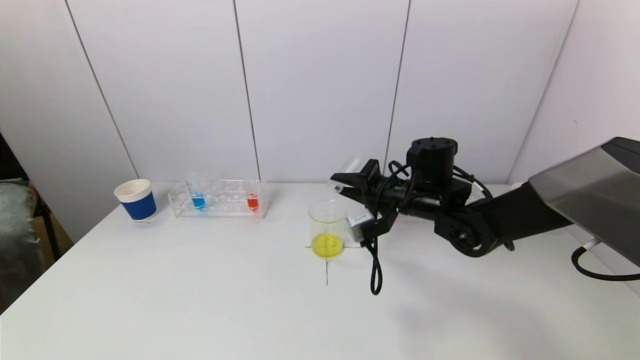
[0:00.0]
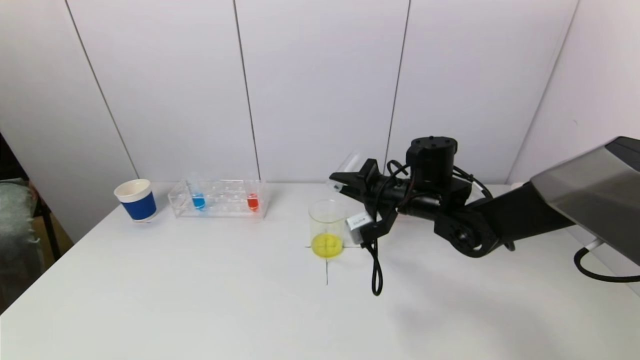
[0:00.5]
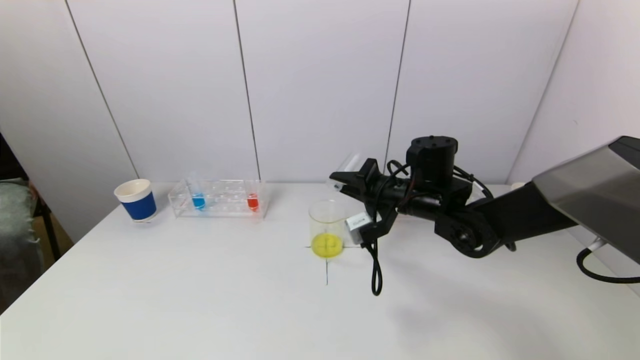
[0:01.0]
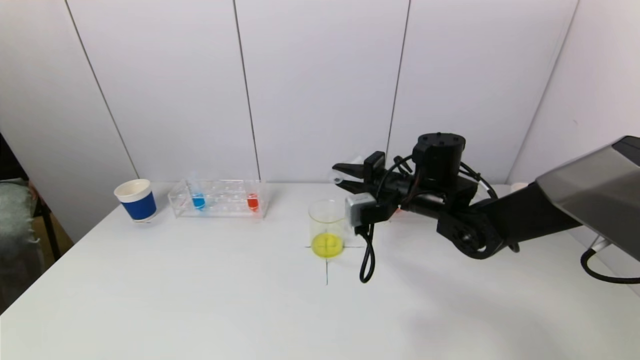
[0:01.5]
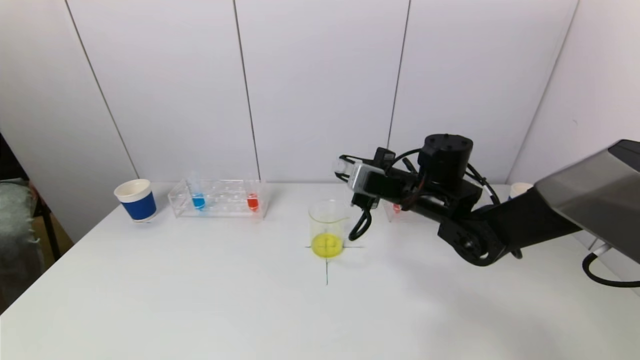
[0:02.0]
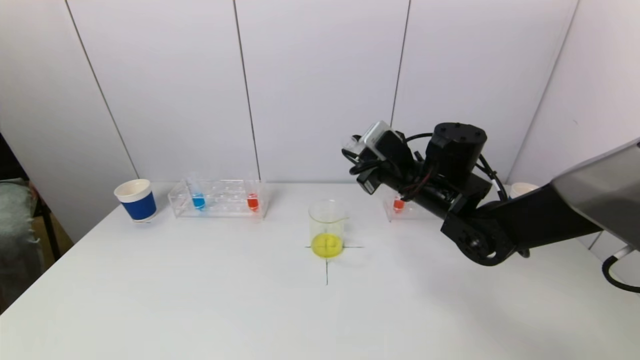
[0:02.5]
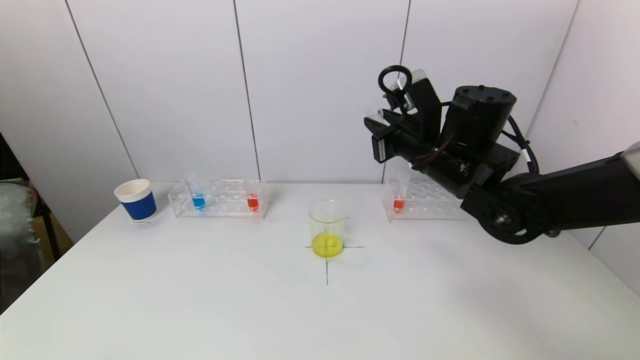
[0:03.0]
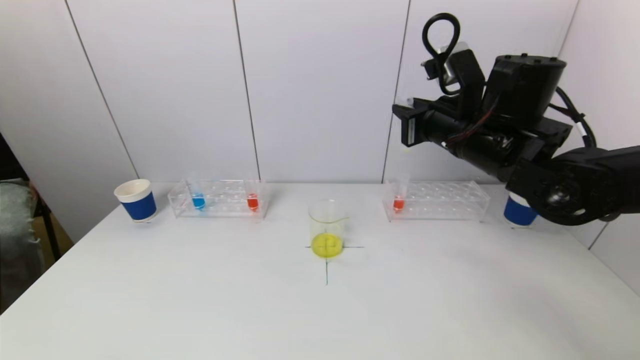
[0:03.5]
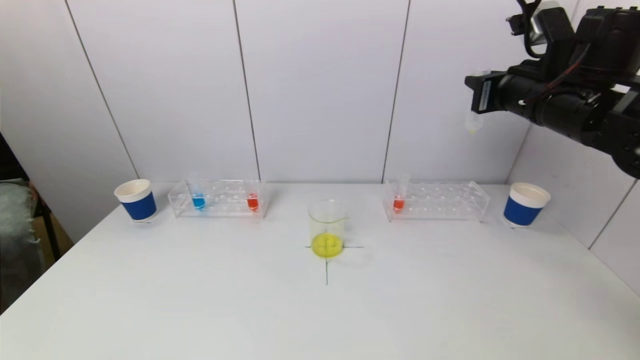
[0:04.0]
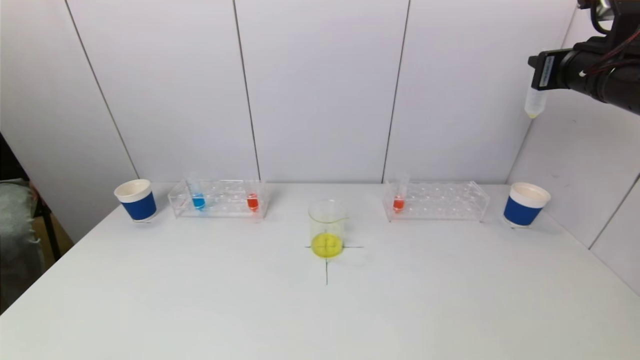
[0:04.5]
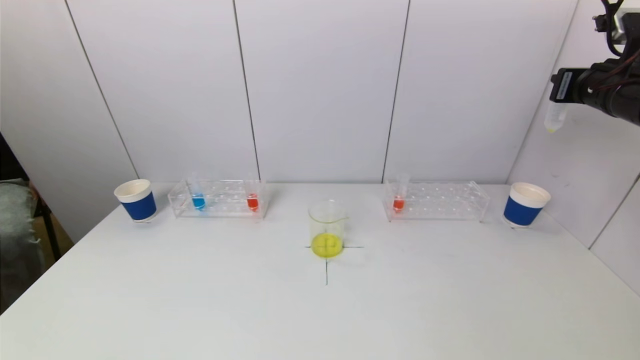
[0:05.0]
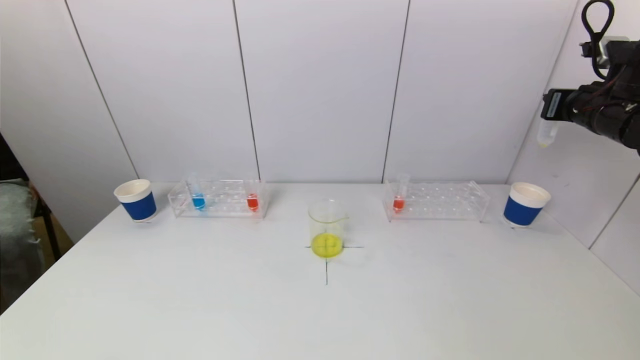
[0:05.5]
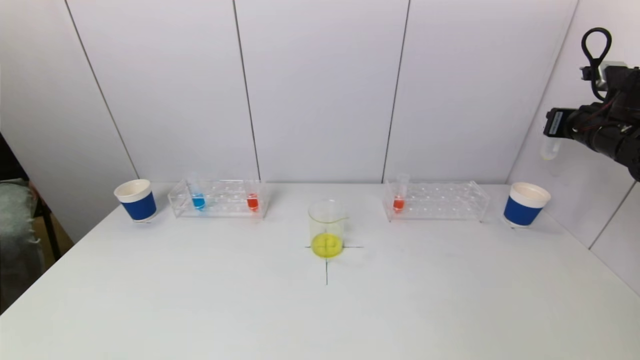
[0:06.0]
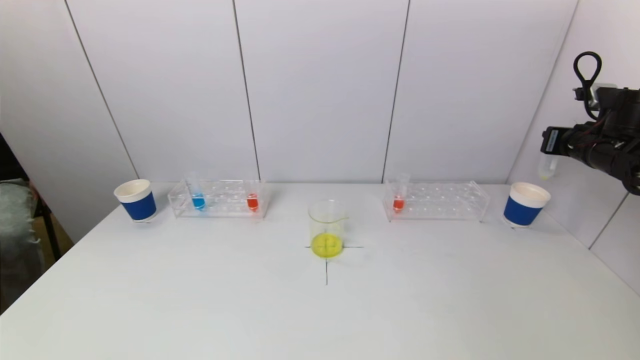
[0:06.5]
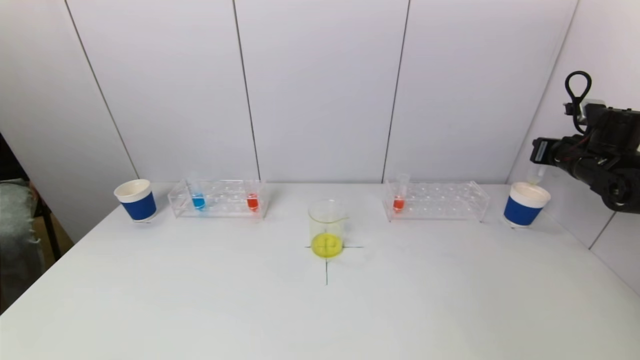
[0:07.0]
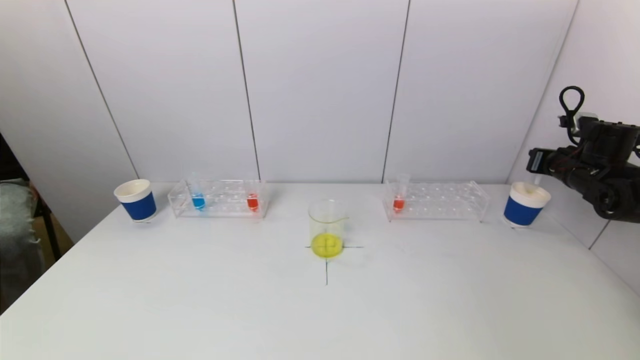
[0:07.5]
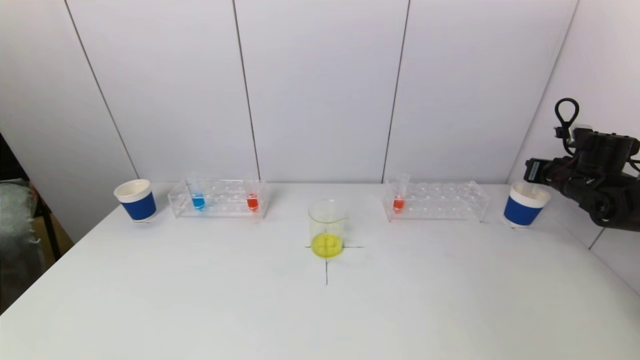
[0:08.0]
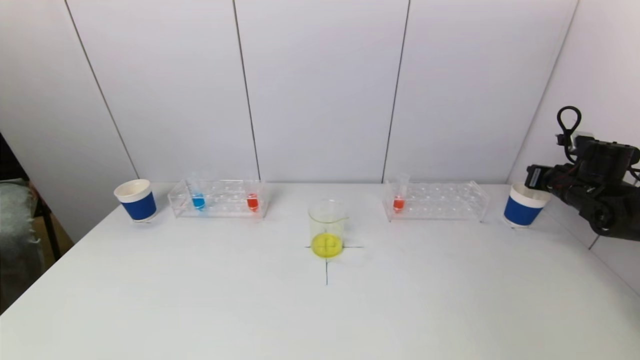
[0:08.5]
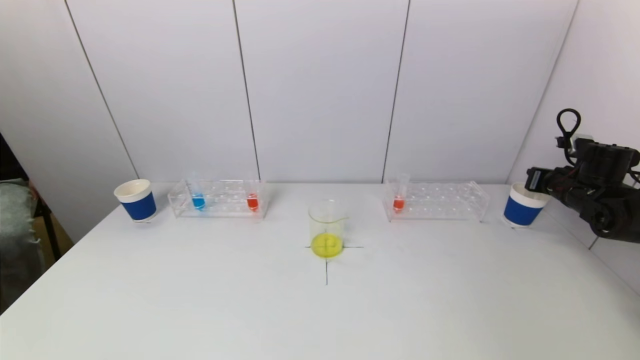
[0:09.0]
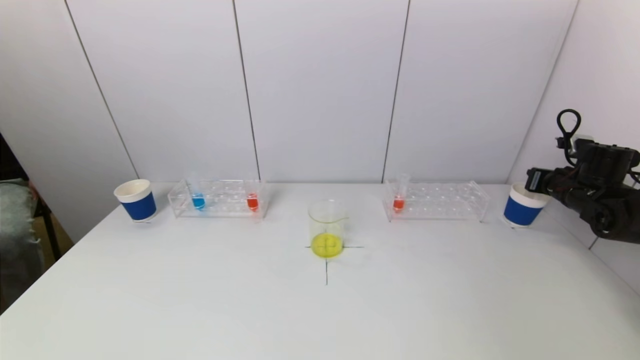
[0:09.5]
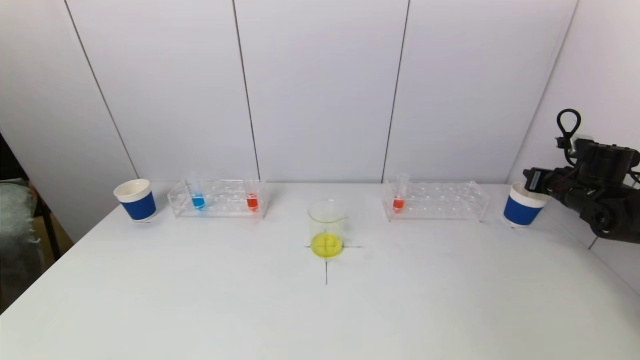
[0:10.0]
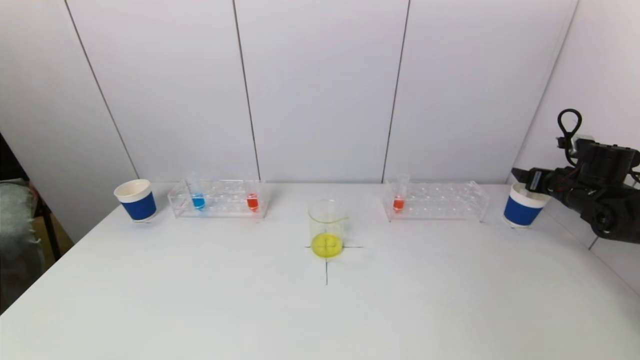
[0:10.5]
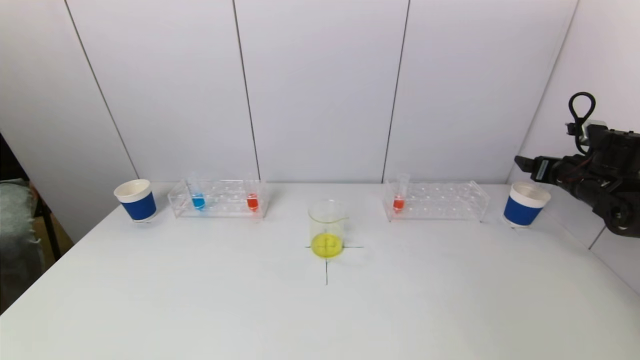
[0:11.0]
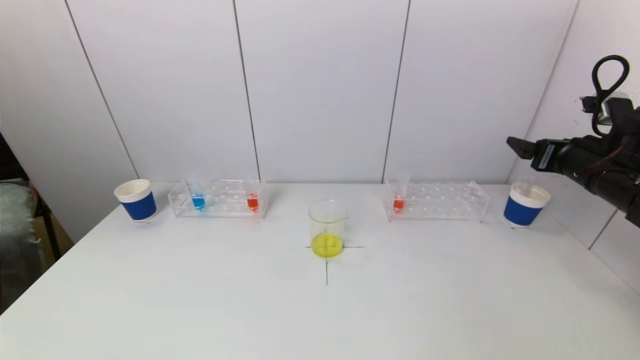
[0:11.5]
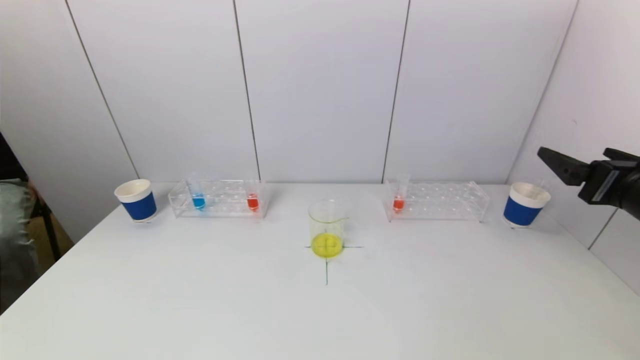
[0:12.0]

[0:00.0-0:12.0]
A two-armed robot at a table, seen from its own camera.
Task of the whole recording: pick up a test tube with pigment on left test tube rack and a test tube with pigment on right test tube rack by grippers and pour them into the beaker.
Step, 0:01.0 to 0:10.5: Place the test tube into the paper cup with the right gripper.
0:02.0 to 0:04.0: The right gripper goes some 20 cm upward and to the right.
0:04.0 to 0:06.0: The right gripper travels to the right and downward by some 15 cm.
0:06.0 to 0:08.0: The right gripper is displaced downward by some 10 cm.
0:08.0 to 0:10.0: There are only small adjustments of the grippers.
0:10.0 to 0:12.0: The right gripper goes roughly 25 cm backward, to the left and upward, and opens up.

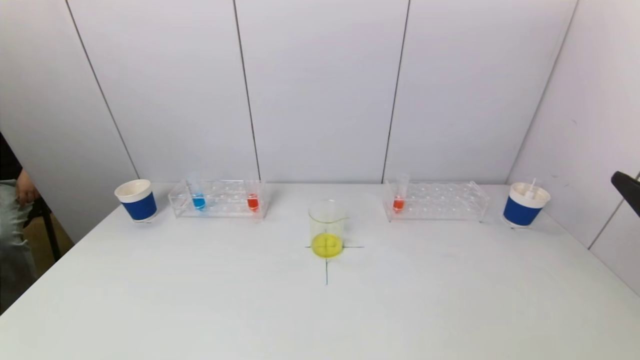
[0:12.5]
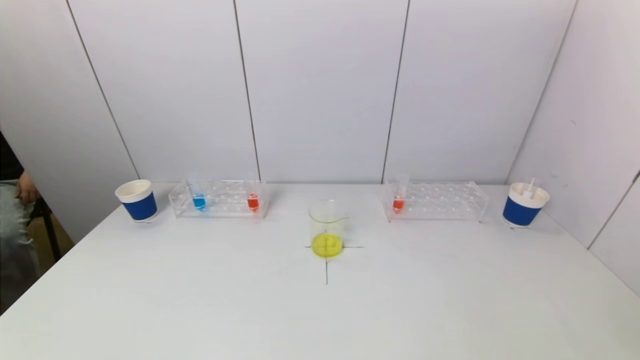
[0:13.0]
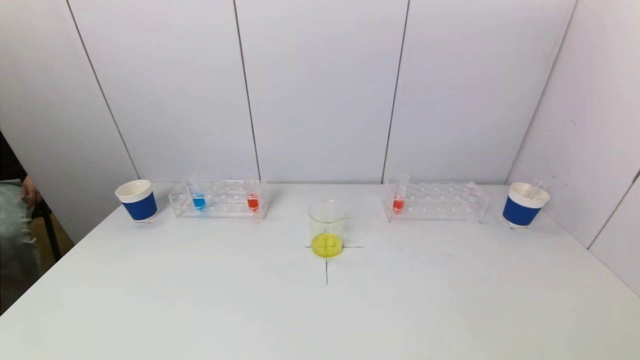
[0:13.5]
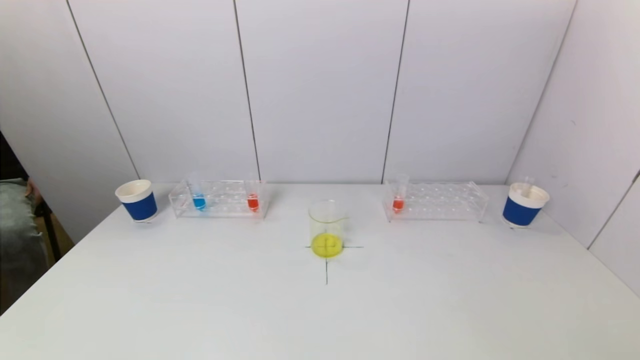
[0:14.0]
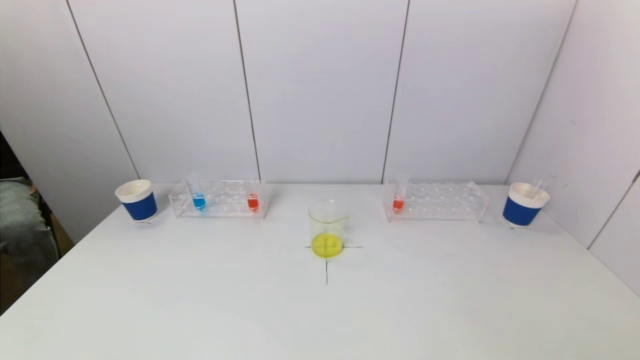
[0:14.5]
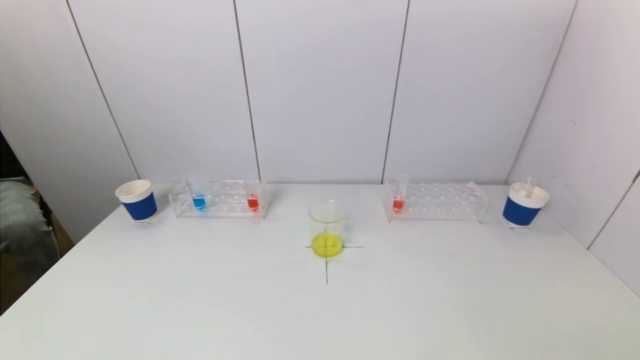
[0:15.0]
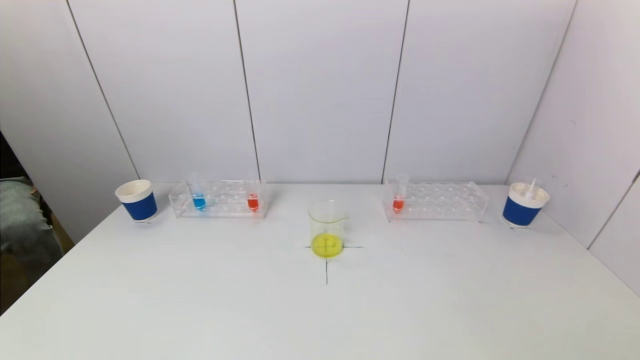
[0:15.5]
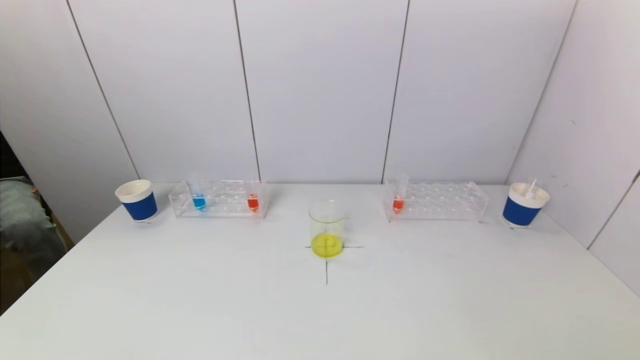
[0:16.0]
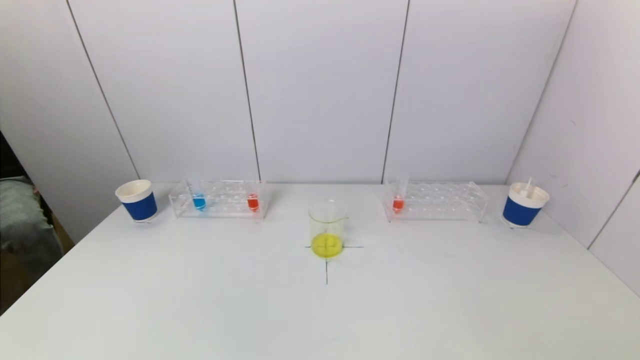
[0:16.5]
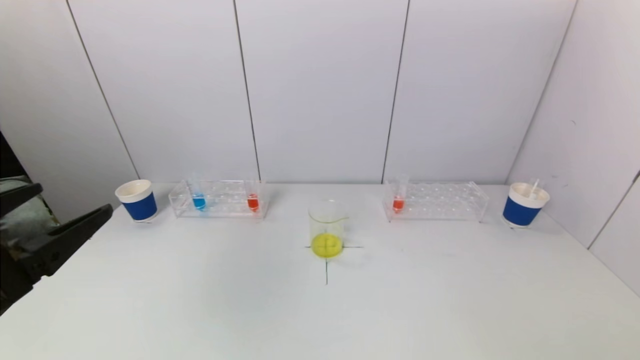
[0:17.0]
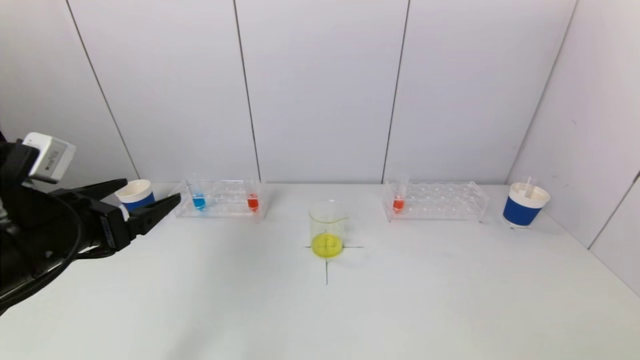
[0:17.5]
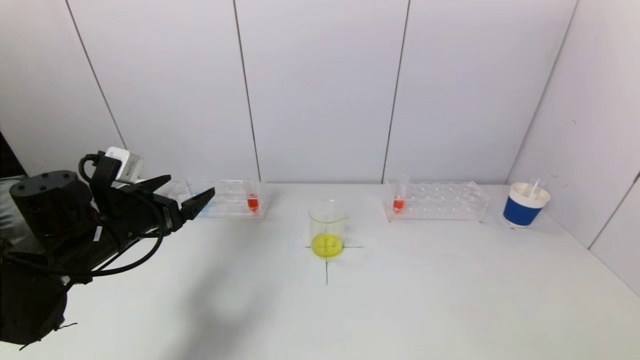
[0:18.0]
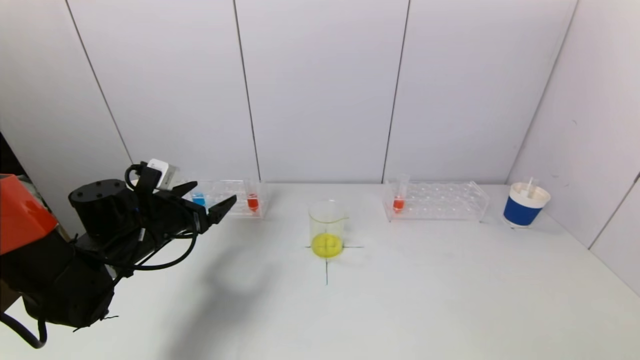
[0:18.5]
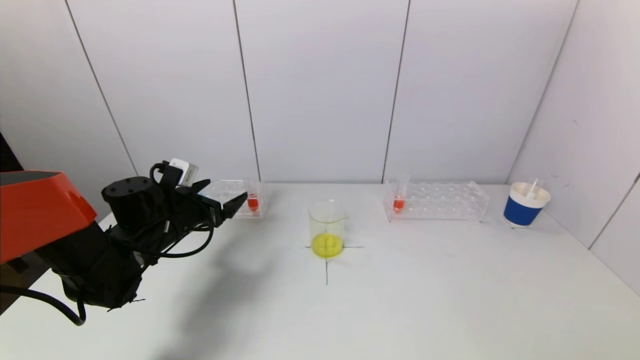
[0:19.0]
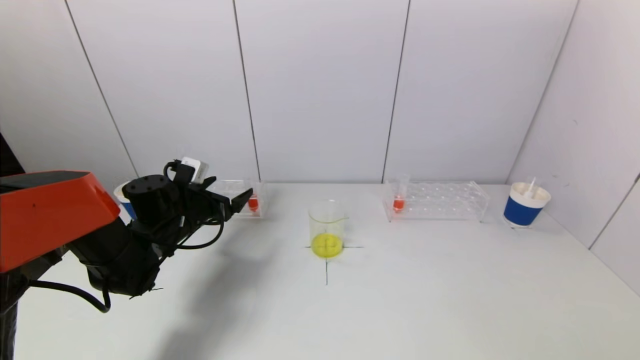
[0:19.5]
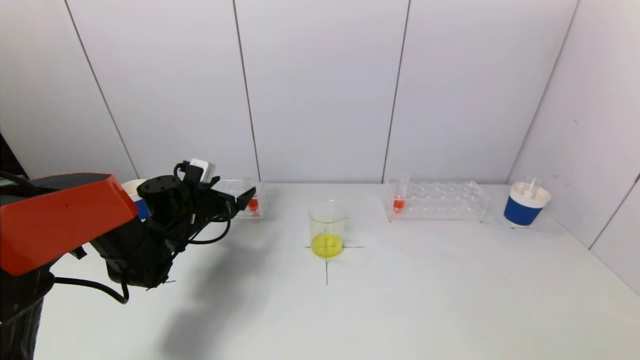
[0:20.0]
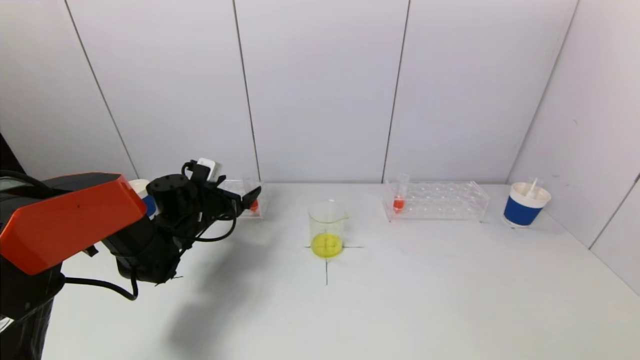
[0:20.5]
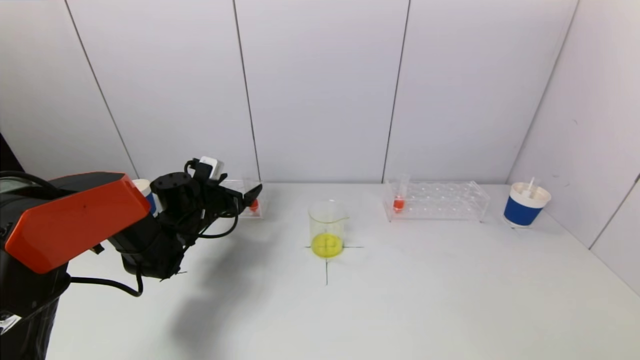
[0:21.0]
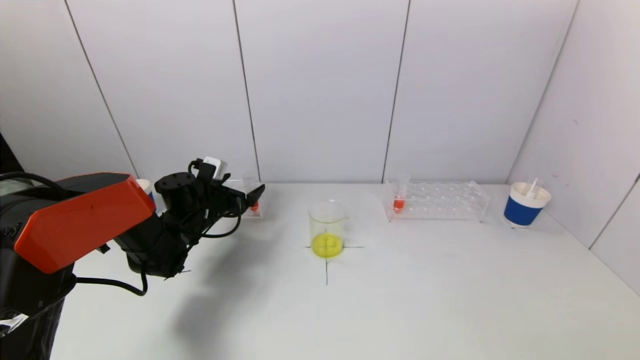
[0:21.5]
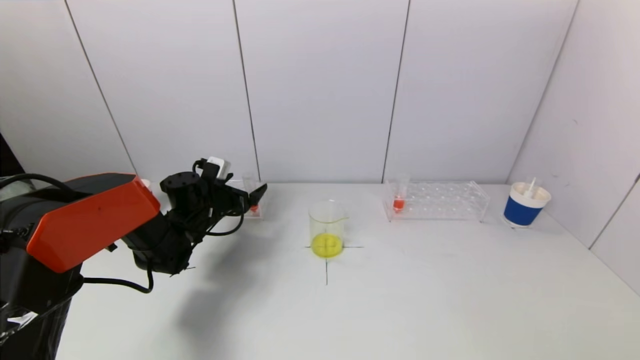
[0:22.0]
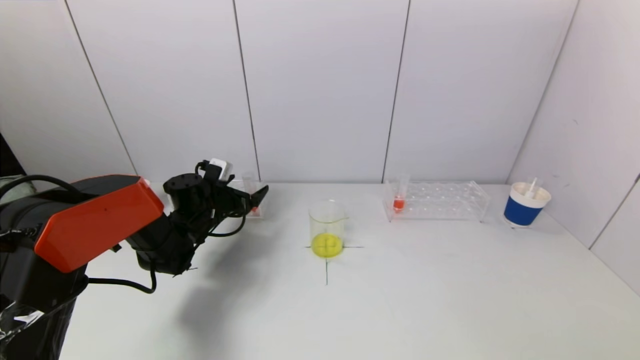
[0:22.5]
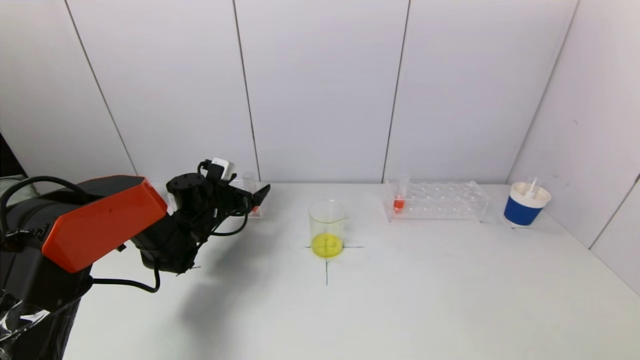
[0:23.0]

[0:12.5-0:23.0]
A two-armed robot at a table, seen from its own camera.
Task of the whole recording: pick up a test tube with pigment on left test tube rack and a test tube with pigment on right test tube rack by grippers and pour them into the beaker.
0:12.5 to 0:14.5: The right gripper shifts some 20 cm downward and backward.
0:16.5 to 0:19.0: The left gripper shifts roughly 35 cm forward.
0:19.0 to 0:21.0: The left gripper goes some 5 cm forward.
0:21.0 to 0:23.0: The grippers stay close to where they were, moving slightly.
